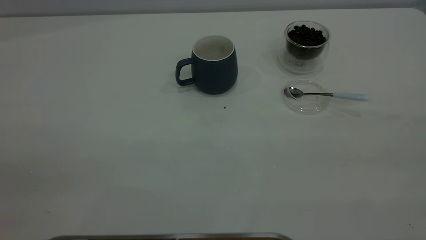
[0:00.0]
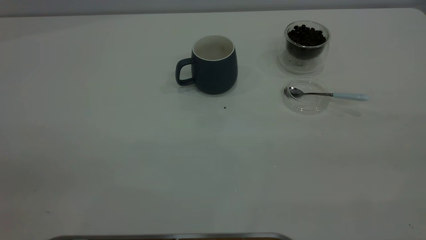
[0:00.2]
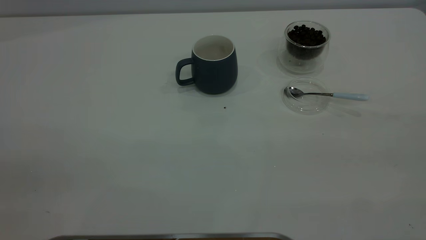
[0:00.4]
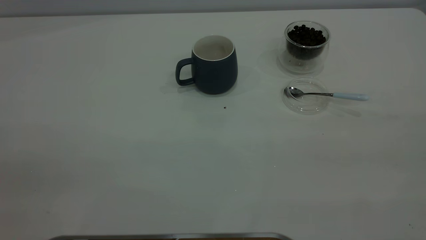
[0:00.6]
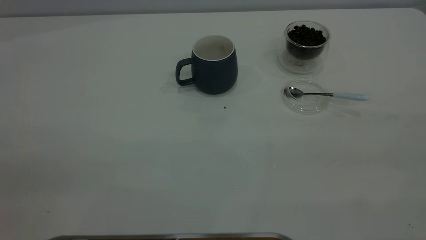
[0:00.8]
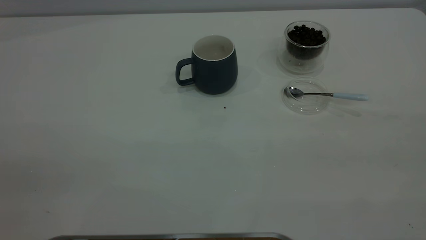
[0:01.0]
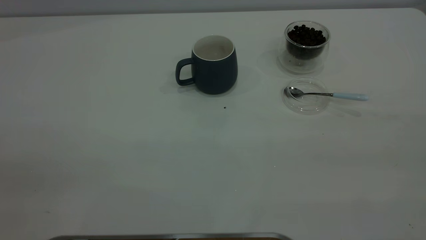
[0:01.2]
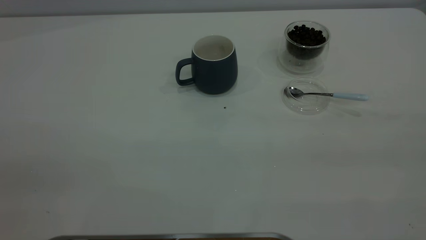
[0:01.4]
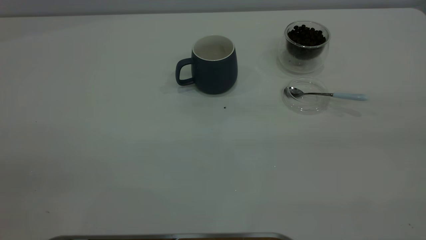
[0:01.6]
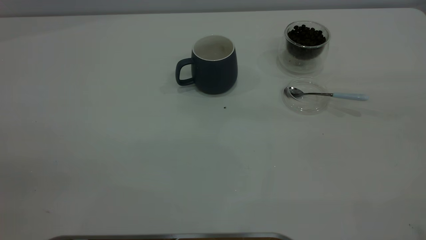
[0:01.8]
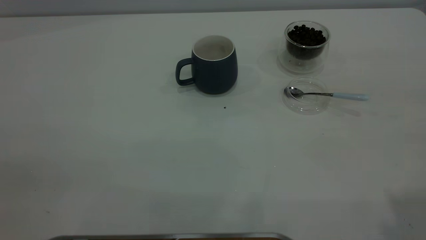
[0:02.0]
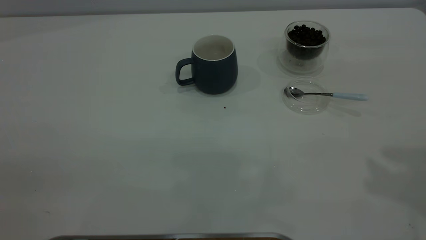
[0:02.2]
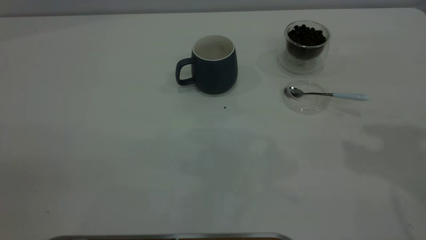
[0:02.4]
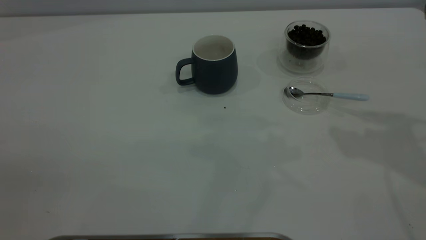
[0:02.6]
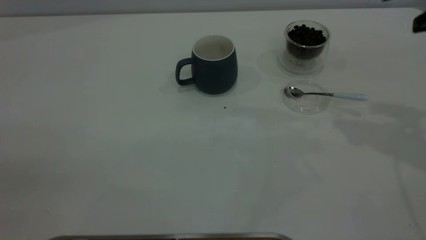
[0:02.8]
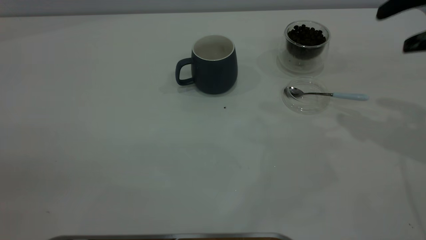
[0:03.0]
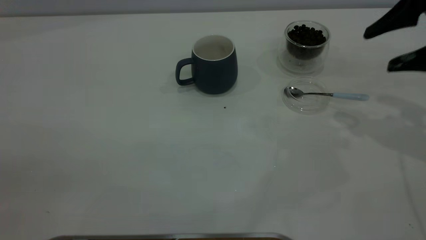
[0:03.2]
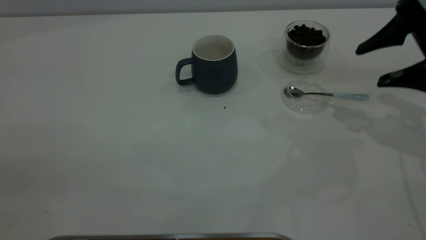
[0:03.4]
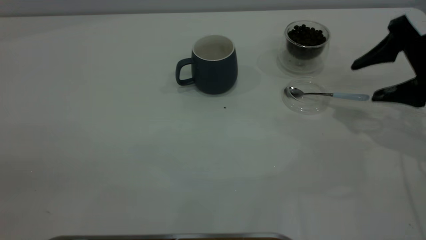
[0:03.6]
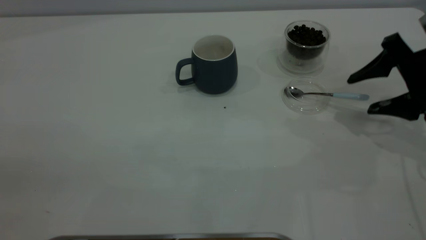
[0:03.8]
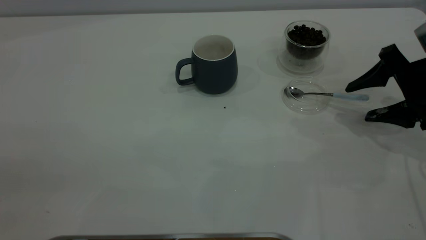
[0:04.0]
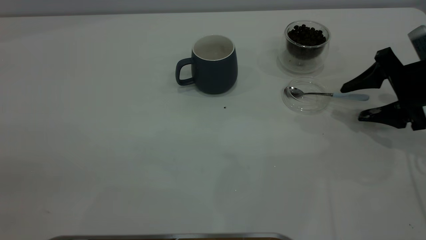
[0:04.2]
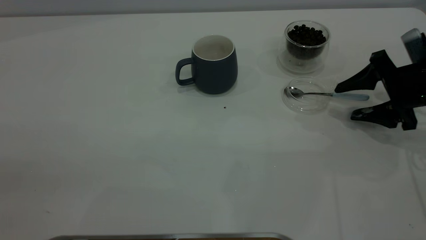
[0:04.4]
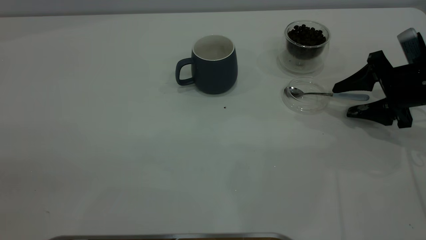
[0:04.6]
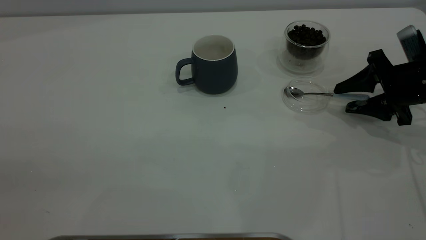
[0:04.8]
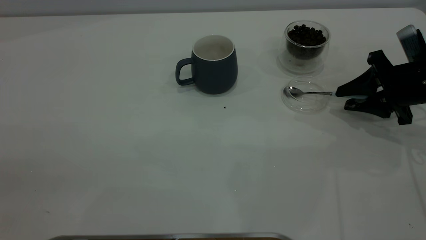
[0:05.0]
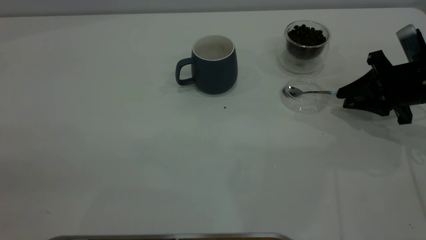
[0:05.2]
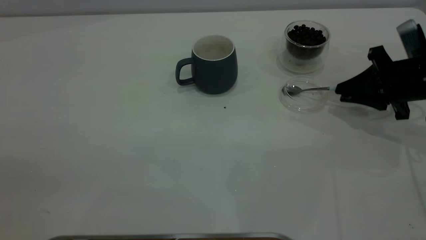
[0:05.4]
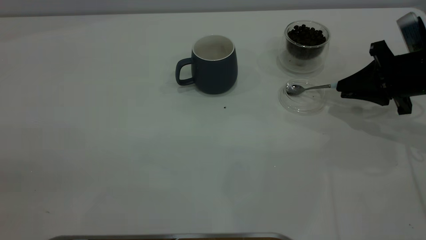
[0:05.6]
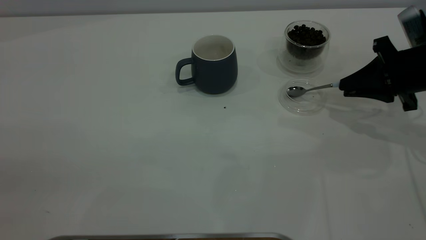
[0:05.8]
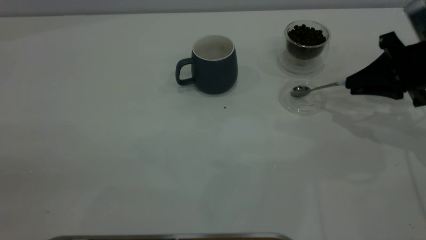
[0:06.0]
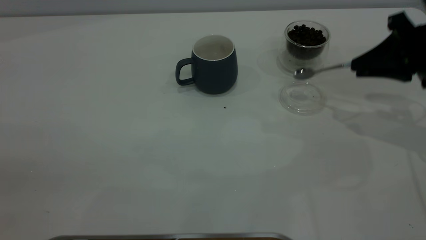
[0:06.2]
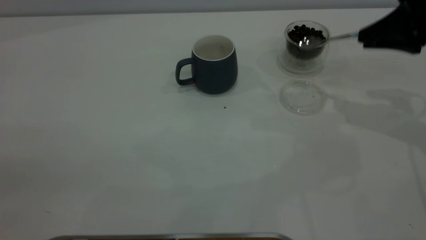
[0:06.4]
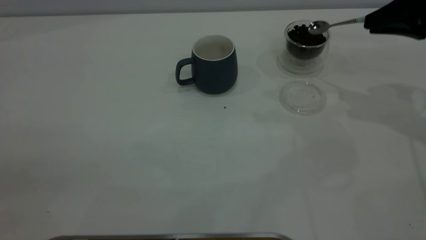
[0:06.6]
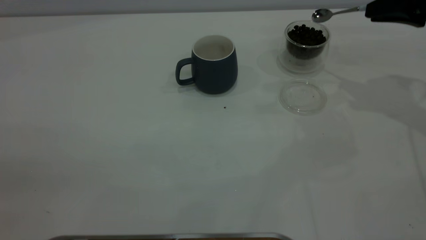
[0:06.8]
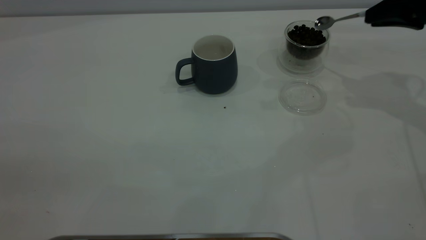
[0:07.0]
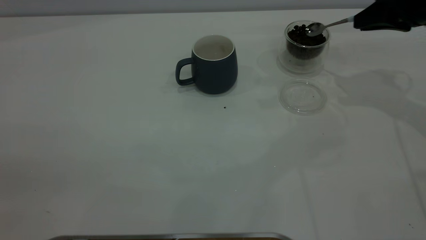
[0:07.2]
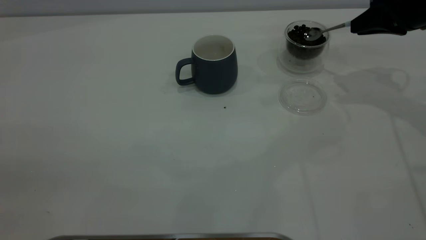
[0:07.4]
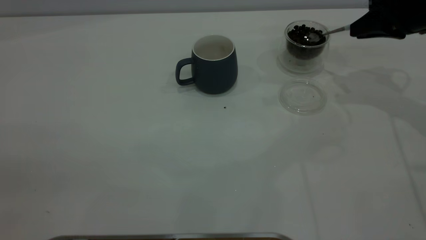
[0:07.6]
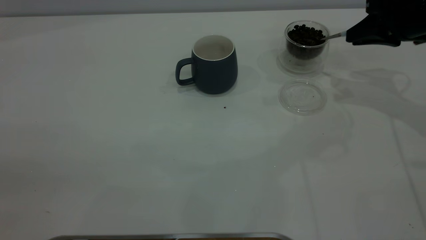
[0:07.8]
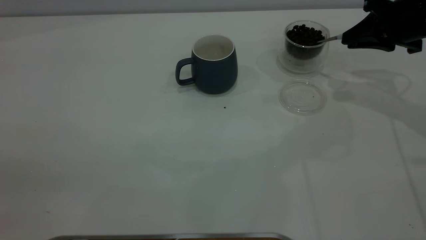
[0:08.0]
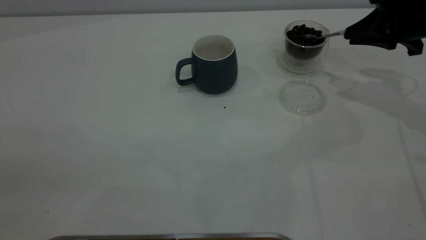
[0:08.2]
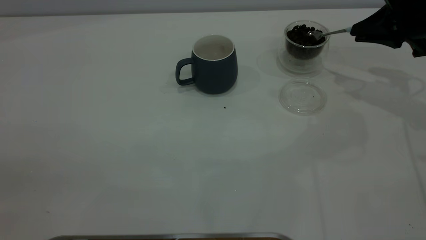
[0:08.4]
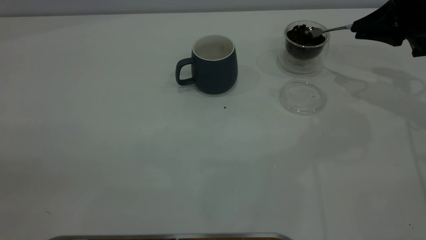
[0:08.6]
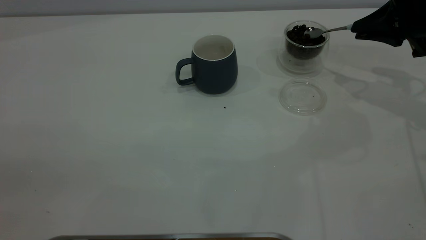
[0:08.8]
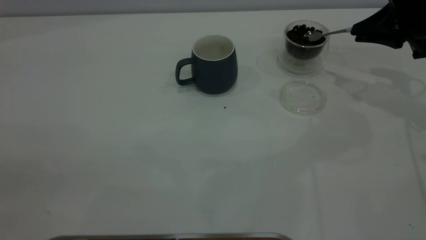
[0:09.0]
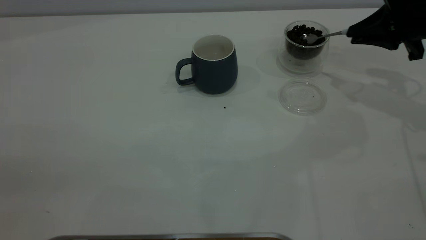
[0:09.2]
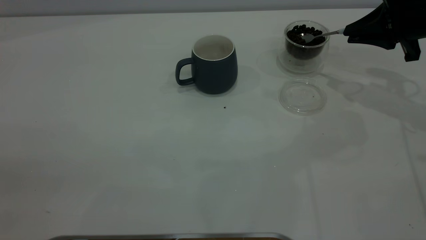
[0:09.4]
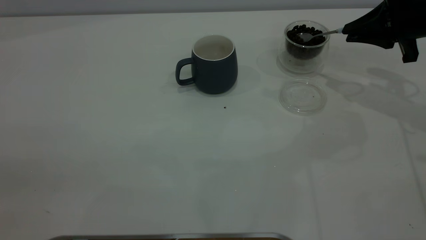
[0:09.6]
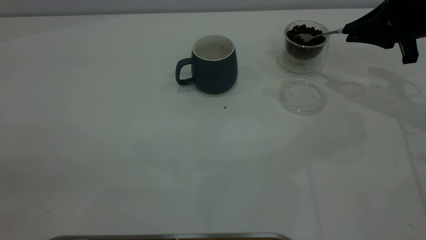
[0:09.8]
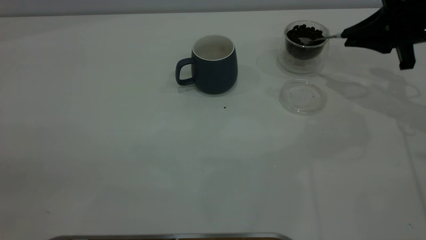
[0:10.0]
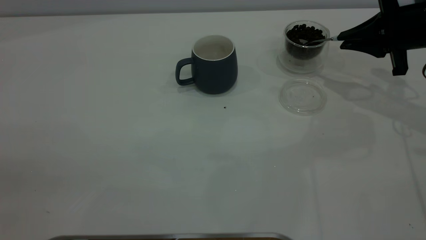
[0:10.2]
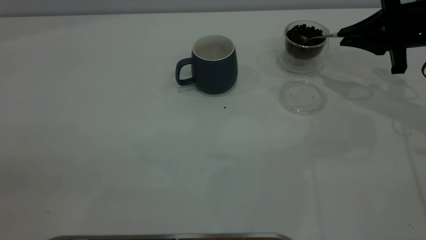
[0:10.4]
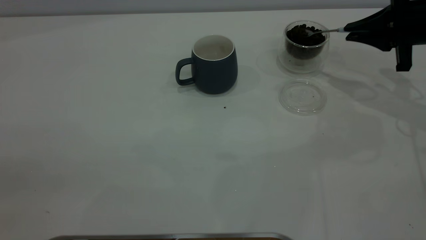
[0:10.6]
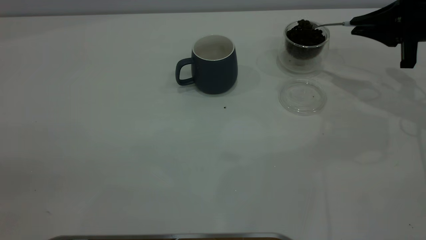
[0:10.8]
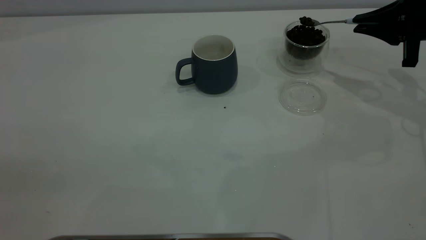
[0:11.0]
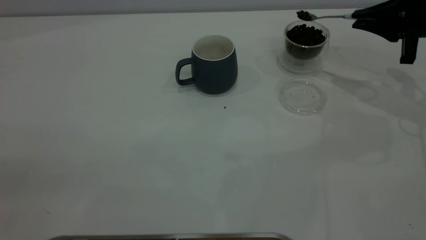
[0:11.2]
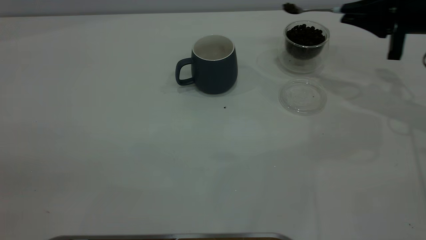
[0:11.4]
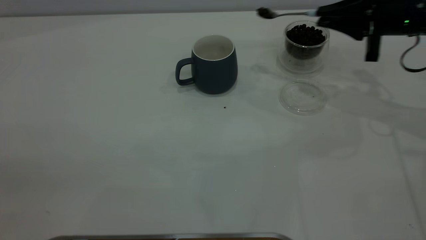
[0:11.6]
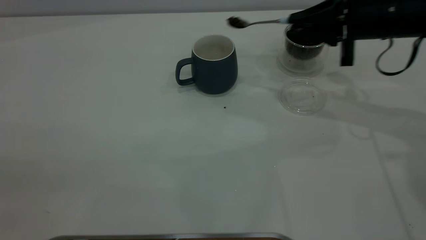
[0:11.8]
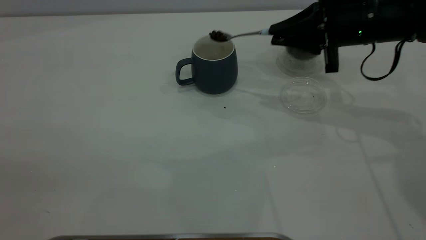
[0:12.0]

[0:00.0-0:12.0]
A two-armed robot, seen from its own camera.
Task of the whole recording: the left gripper place the grey cup in the center of the table, the right gripper take the blue spoon from the cup lid and scoop out the coffee beans from the coffee cup and put them into the grey cup, the right gripper put the spoon back into the cup lid.
Step, 0:00.0 to 0:06.0: Pick up the spoon.
0:01.6 to 0:03.0: The right gripper moves forward and downward, roughly 35 cm, and opens its fingers.
0:03.0 to 0:04.4: The right gripper shifts roughly 15 cm downward.
0:04.4 to 0:06.0: The right gripper shifts some 5 cm upward, and closes.
0:06.0 to 0:07.6: The right gripper moves forward, about 5 cm.
0:10.4 to 0:12.0: The right gripper shifts roughly 10 cm to the left.

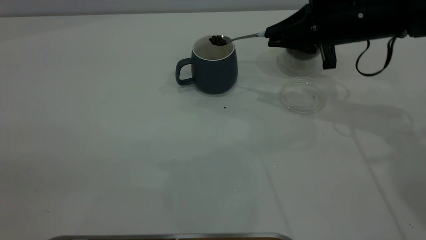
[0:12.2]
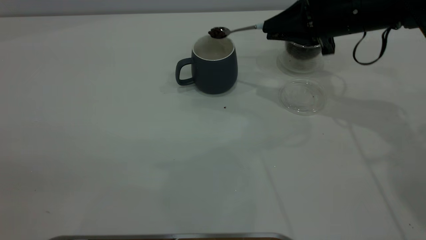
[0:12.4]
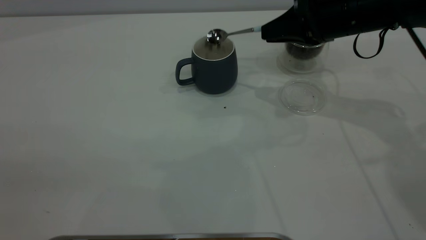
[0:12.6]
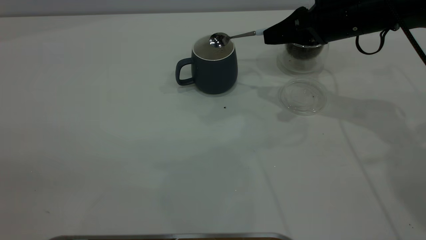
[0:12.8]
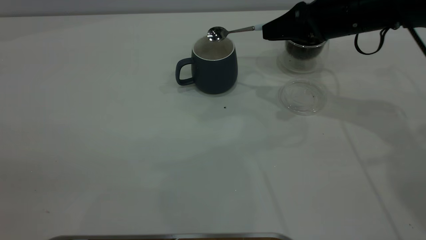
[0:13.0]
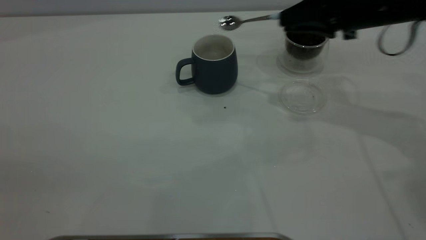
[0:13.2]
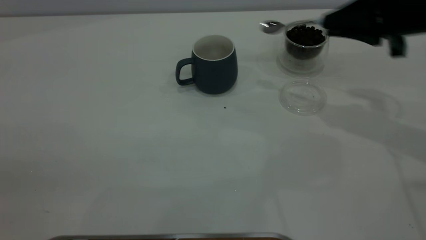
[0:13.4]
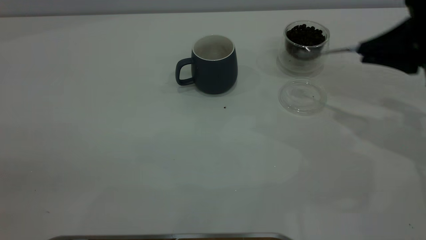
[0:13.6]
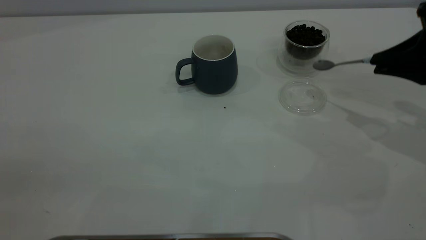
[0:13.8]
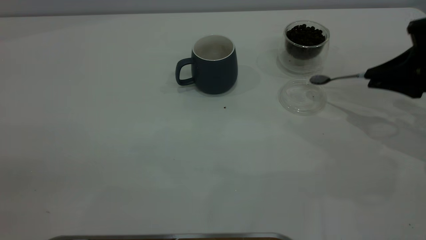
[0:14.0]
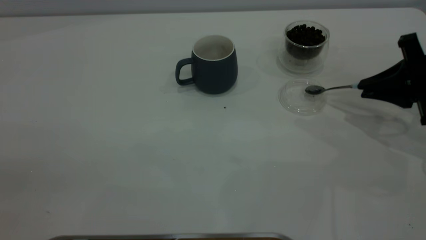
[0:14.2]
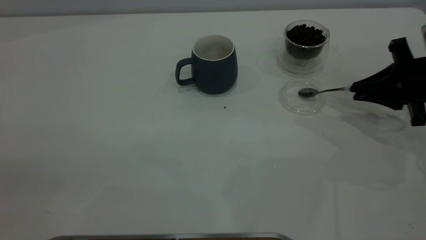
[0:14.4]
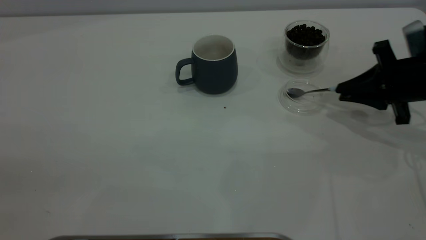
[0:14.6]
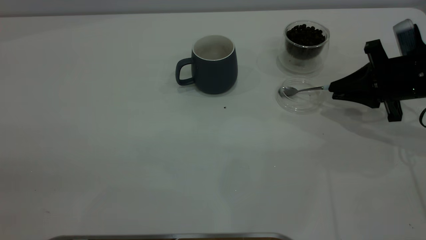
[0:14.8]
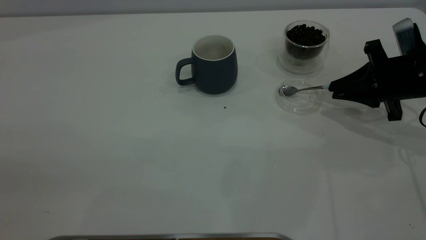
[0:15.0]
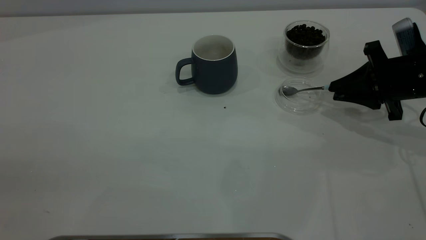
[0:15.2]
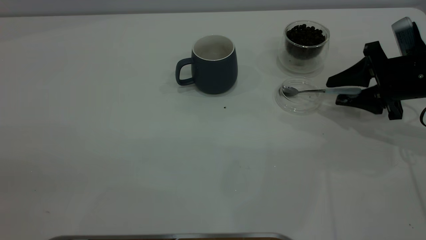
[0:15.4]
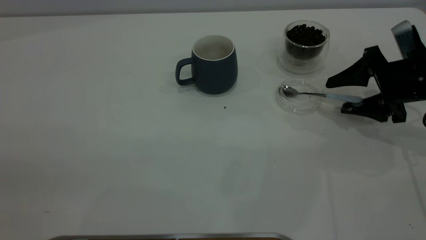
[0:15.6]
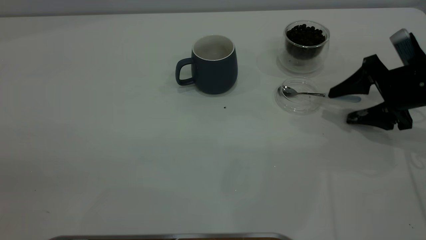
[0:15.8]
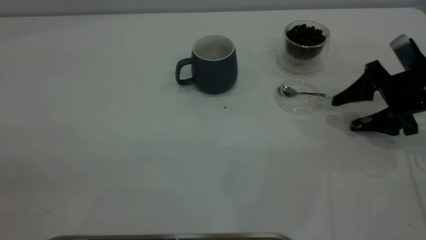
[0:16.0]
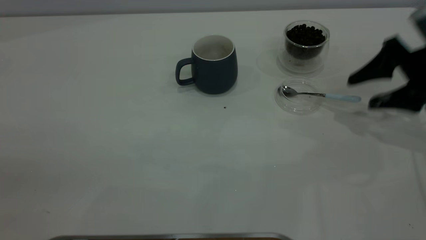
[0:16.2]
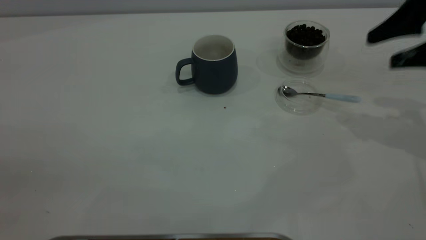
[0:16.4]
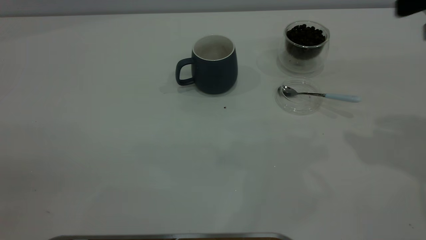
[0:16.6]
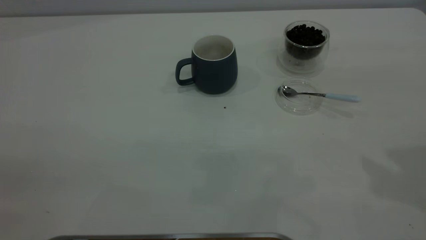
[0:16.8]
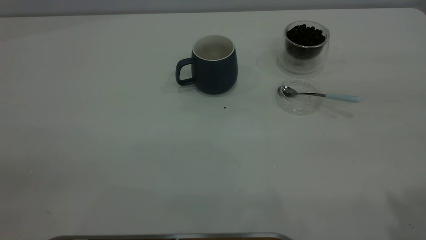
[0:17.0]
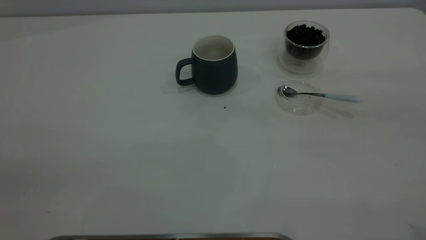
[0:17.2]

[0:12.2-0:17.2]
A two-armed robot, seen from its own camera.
Task of the whole recording: the left gripper place the grey cup in the center of the table, the right gripper take the blue spoon from the cup lid and scoop out the coffee beans from the coffee cup and put them into the grey cup, the right gripper put the spoon back into the cup lid.
Step, 0:13.2 to 0:16.0: Place the spoon back in its original place.
0:12.2 to 0:13.8: The right gripper goes about 15 cm to the right and backward.
0:13.8 to 0:15.6: The right gripper is displaced downward by about 10 cm, and opens its fingers.
0:15.6 to 0:17.2: The right gripper goes about 40 cm upward and backward.
